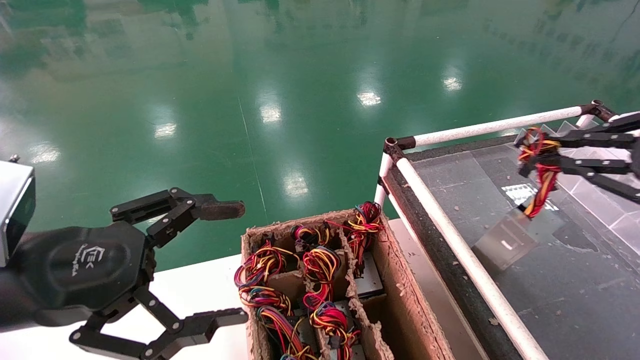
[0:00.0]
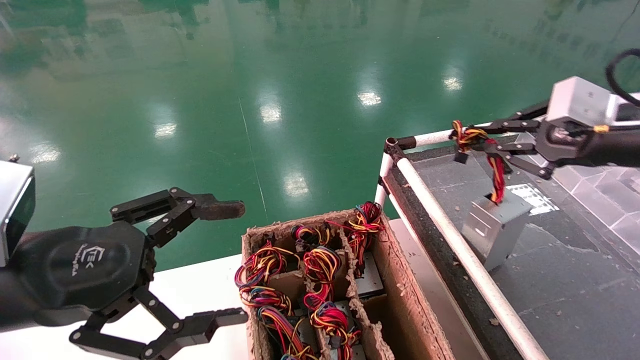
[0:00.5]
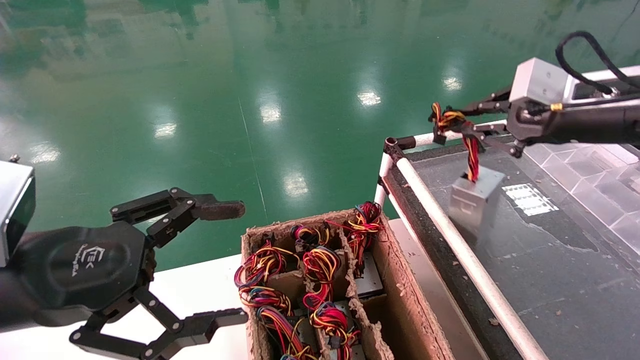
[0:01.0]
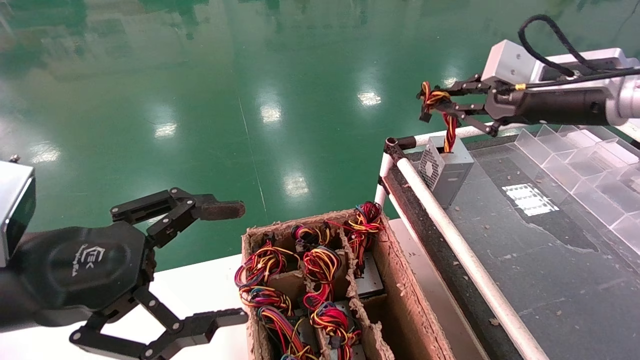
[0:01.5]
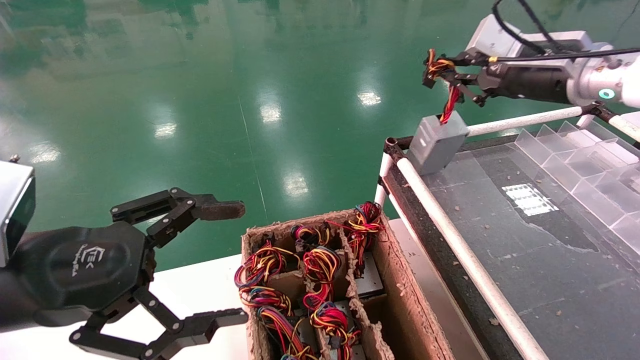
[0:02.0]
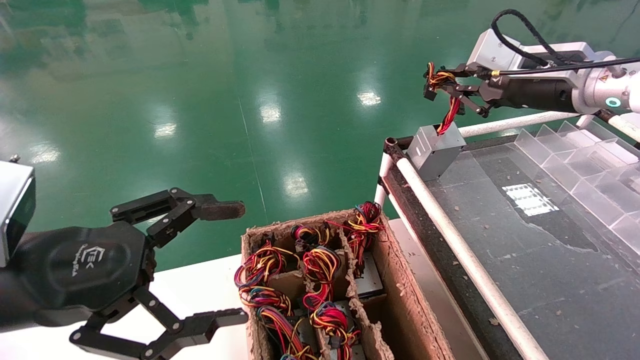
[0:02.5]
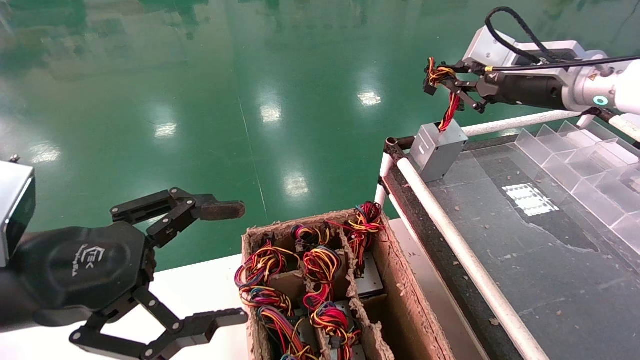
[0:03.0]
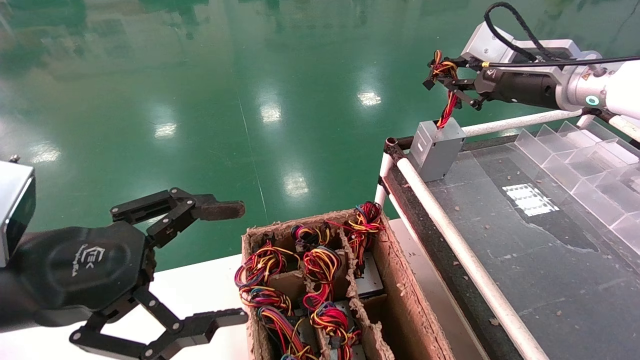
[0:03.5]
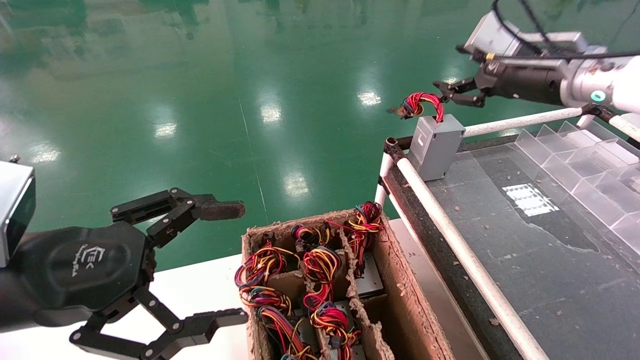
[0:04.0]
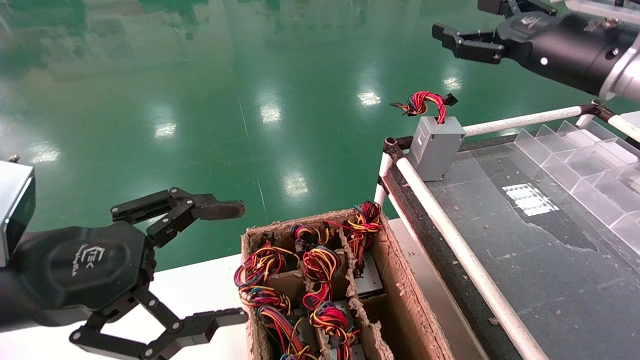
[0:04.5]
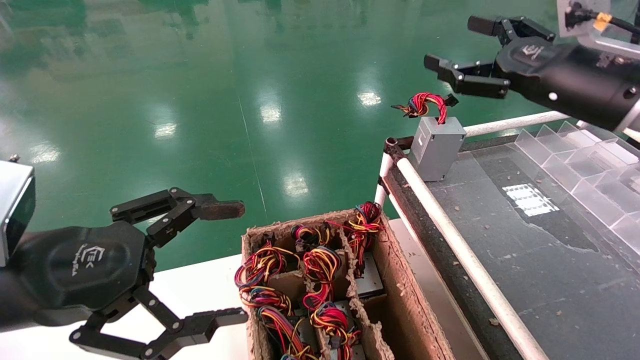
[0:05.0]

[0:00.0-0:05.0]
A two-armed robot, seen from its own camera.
Step, 0:00.0 to 0:03.0: Place the power supply on the operating table.
0:00.0 to 0:02.5: The right gripper is displaced forward and to the left by roughly 20 cm.
0:02.5 to 0:05.0: The right gripper is displaced backward by some 5 cm, and opens.
